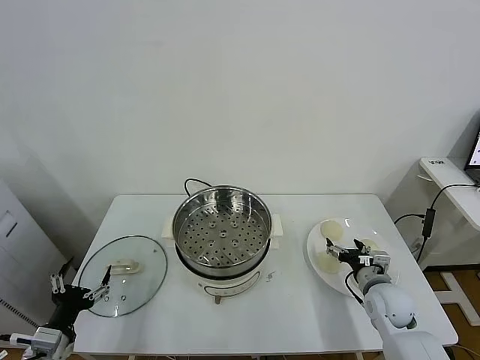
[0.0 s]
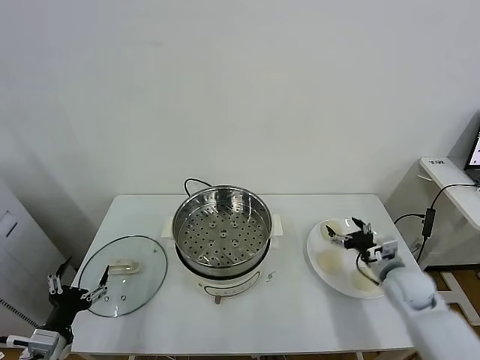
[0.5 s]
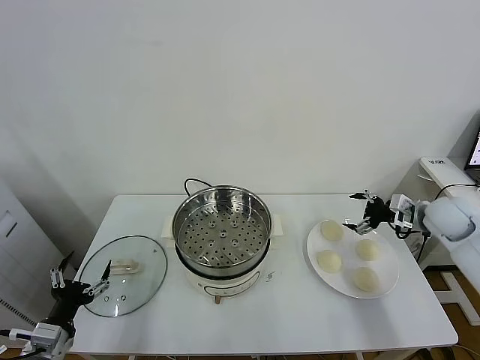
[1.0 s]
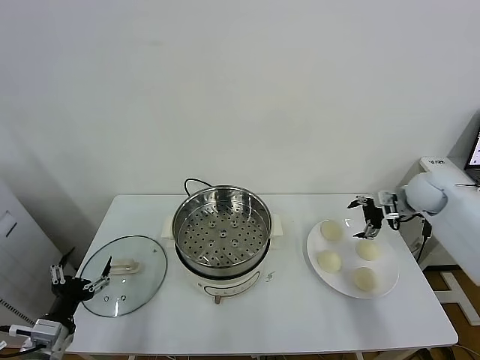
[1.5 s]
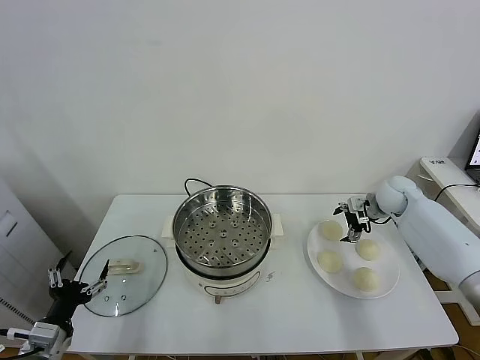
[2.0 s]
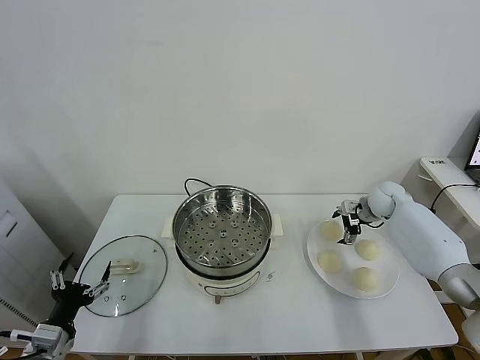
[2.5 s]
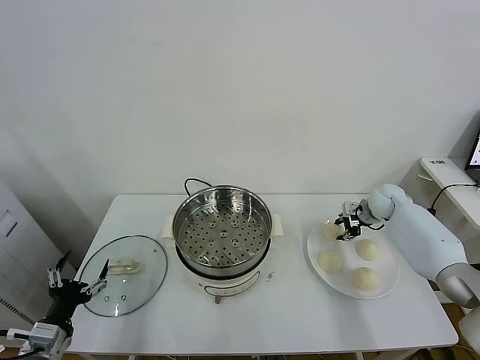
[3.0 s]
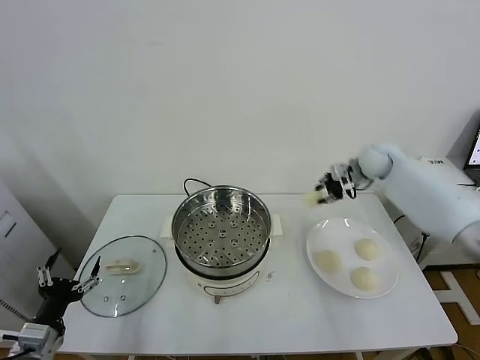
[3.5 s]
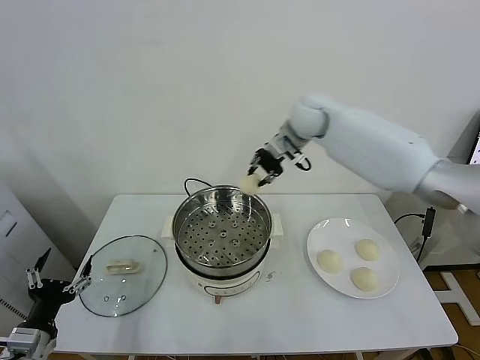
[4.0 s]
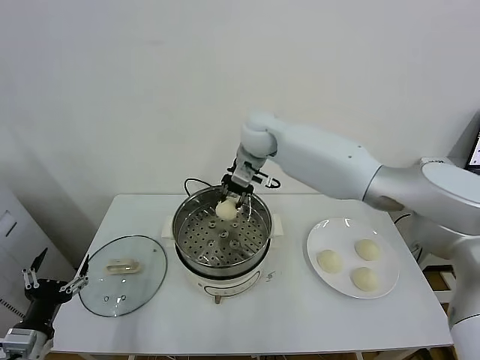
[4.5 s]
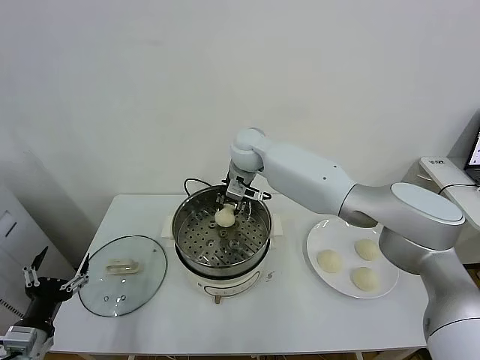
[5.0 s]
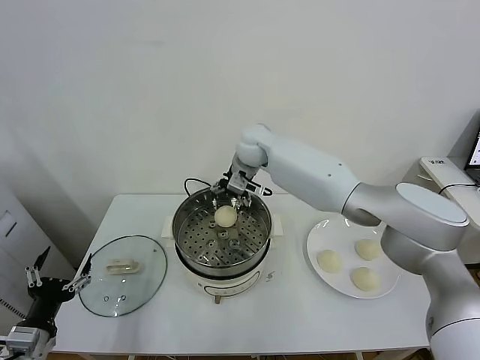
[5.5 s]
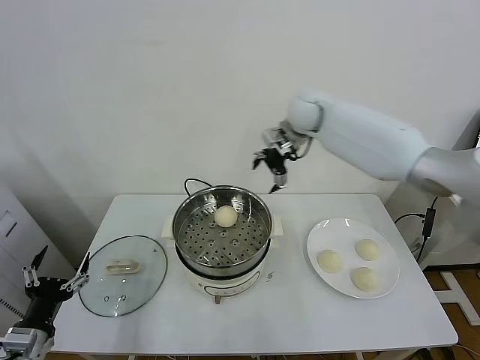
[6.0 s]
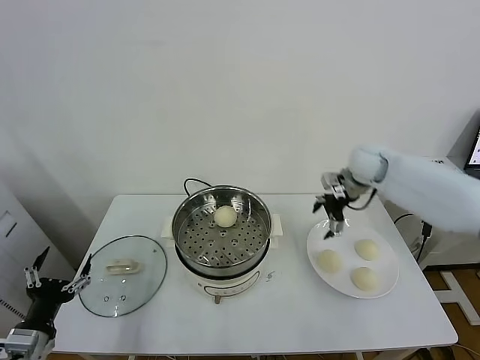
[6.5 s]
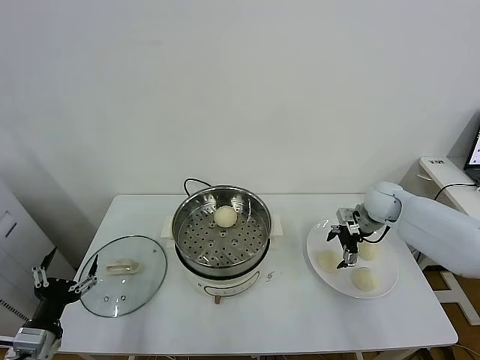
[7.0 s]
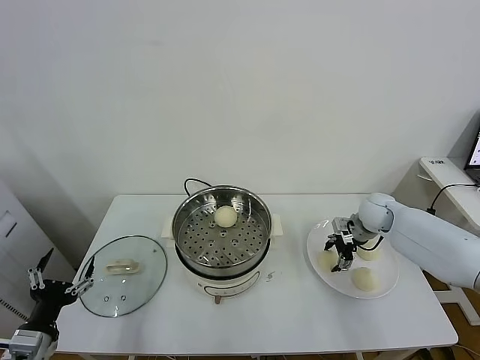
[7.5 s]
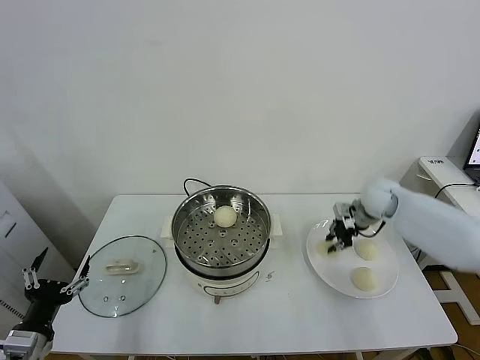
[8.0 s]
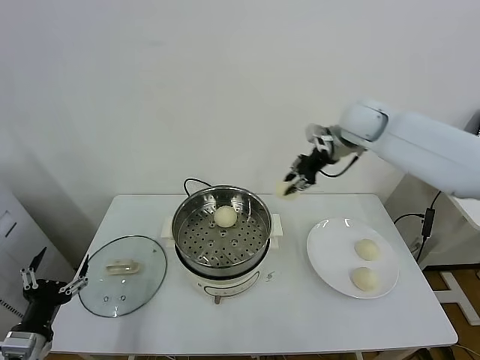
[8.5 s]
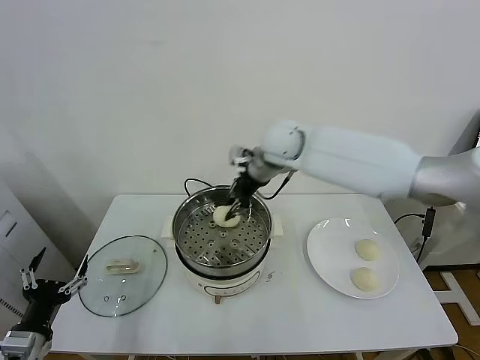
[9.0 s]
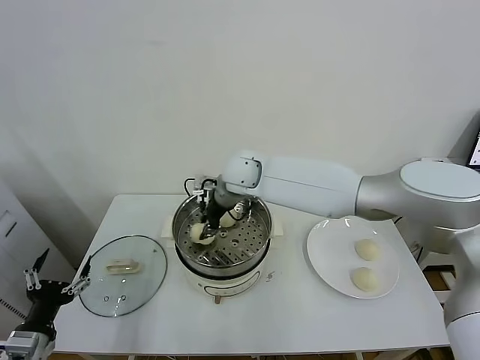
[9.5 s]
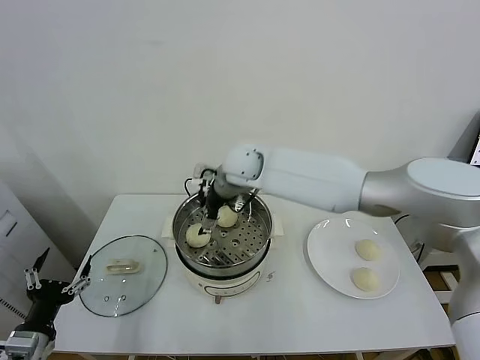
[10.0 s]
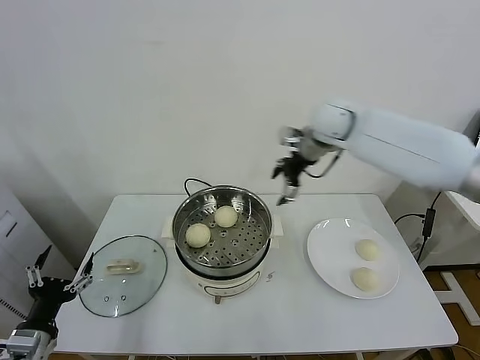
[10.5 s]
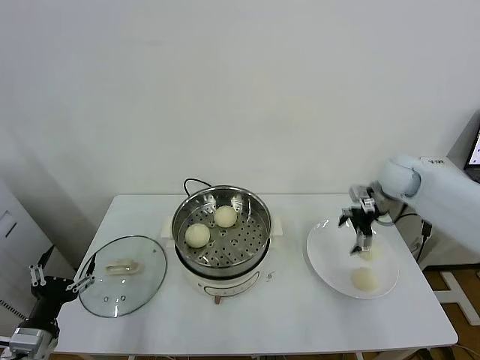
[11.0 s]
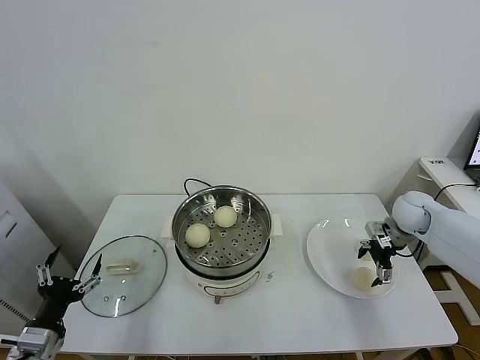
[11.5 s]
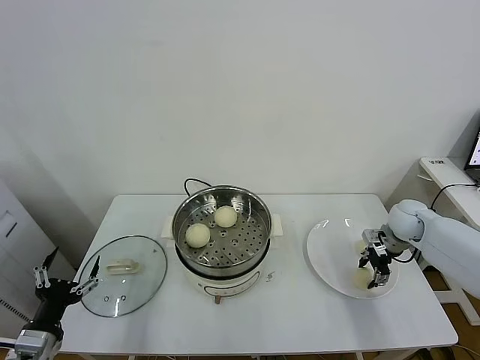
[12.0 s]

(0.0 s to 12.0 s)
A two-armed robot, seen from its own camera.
Task of the whole recording: take steamed baozi put them in steamer.
Step, 0.0 s - 2.5 s: Grasp the baozi in the plate with right gripper.
Step, 3.0 s - 5.0 s: Place the baozi on the steamer with right gripper.
Step, 5.5 s - 7.5 s: Grasp the baozi in the plate with right gripper.
Step, 8.0 s - 9.5 s: Place the baozi on the steamer with right gripper.
Step, 10.0 s - 12.0 s: Grasp the baozi in the plate with right gripper.
2.0 s - 4.0 s: The right gripper goes roughly 35 cm to the left and upward, and closes up.
4.0 s - 6.0 s: The right gripper heads to the right, covering roughly 5 cm, and opens.
6.0 s - 8.0 s: The right gripper travels downward, to the right and backward by approximately 25 cm, and closes its fingers.
8.0 s - 10.0 s: The right gripper travels to the left by approximately 35 cm, and opens.
10.0 s - 12.0 s: The right gripper shifts some 40 cm to the right and downward, and closes up.

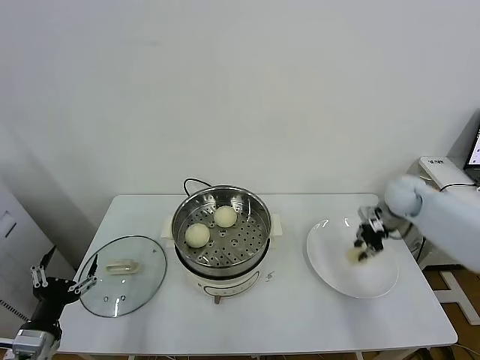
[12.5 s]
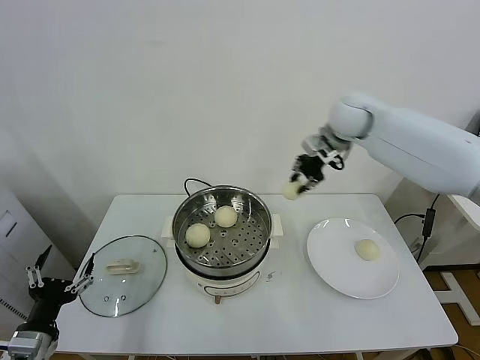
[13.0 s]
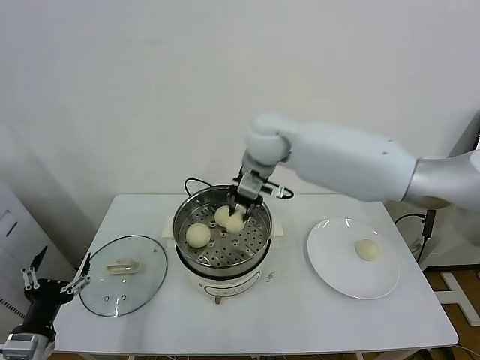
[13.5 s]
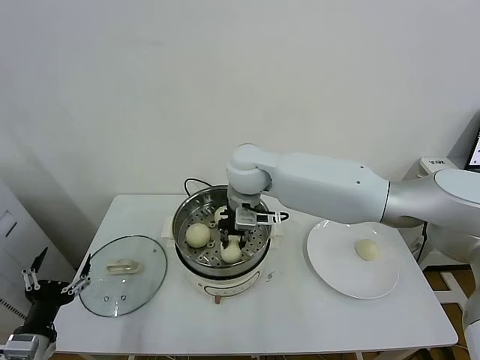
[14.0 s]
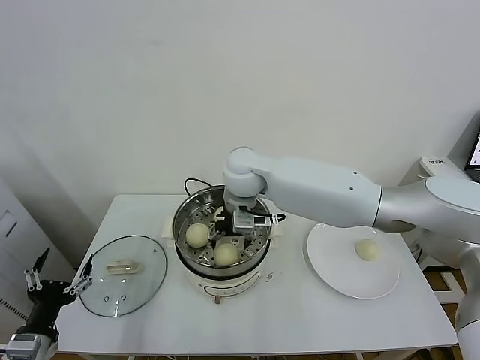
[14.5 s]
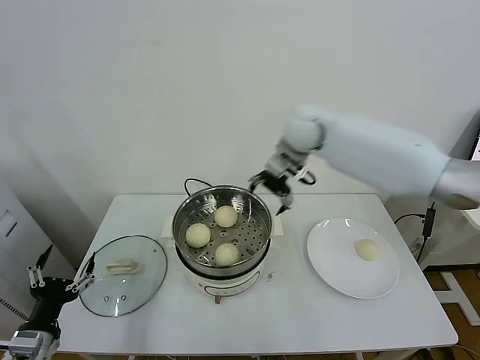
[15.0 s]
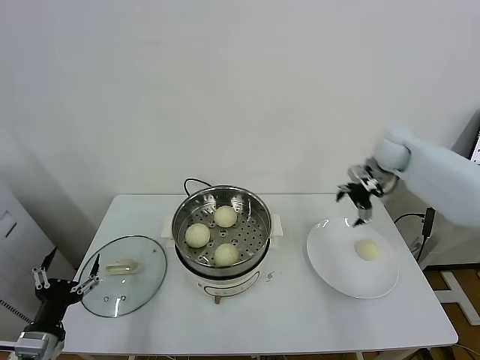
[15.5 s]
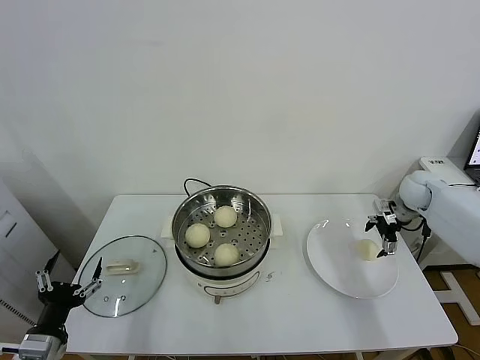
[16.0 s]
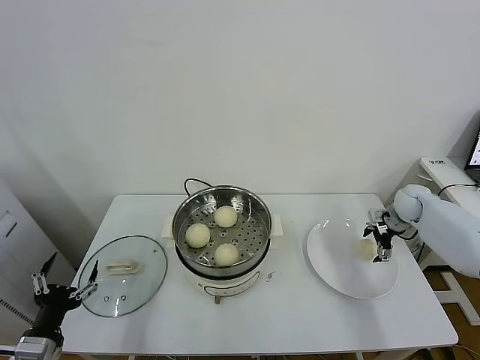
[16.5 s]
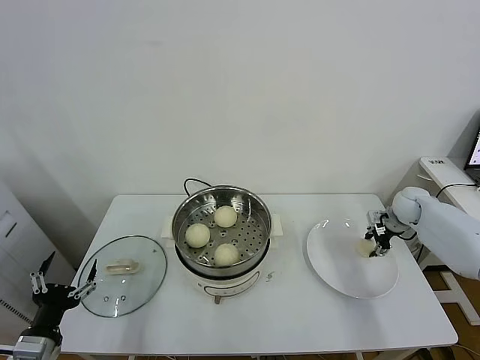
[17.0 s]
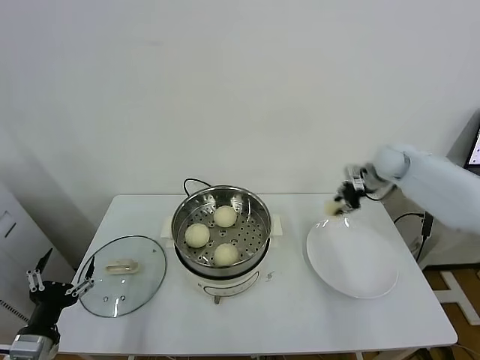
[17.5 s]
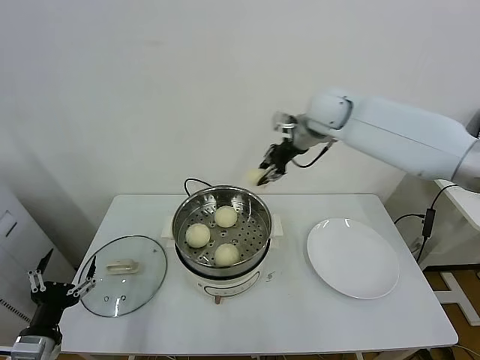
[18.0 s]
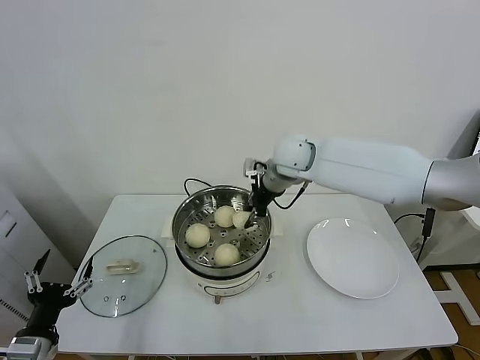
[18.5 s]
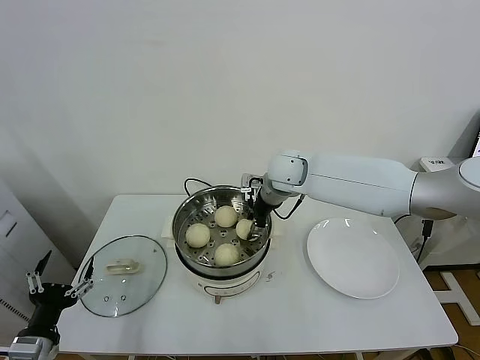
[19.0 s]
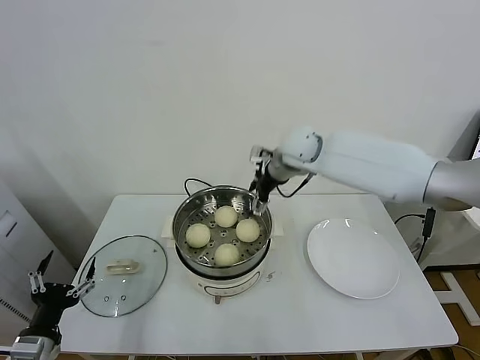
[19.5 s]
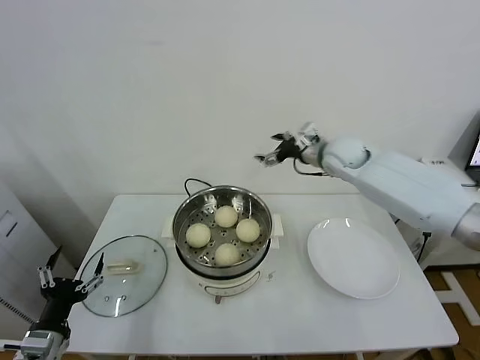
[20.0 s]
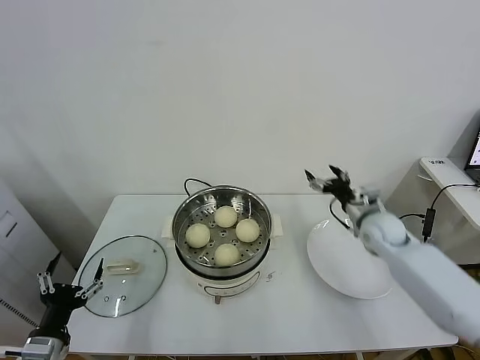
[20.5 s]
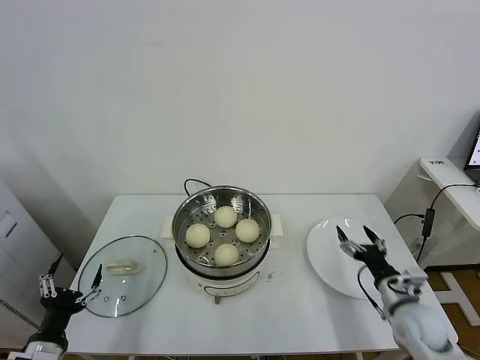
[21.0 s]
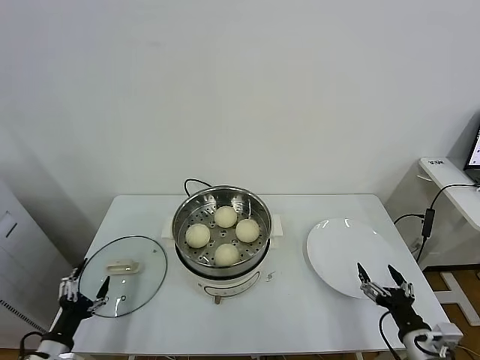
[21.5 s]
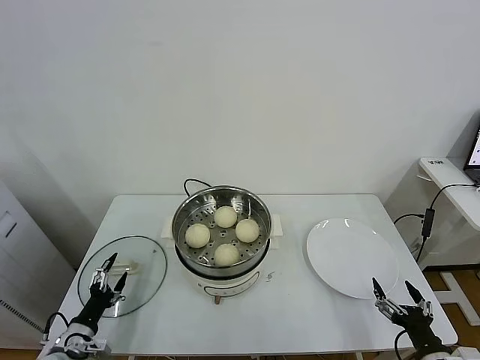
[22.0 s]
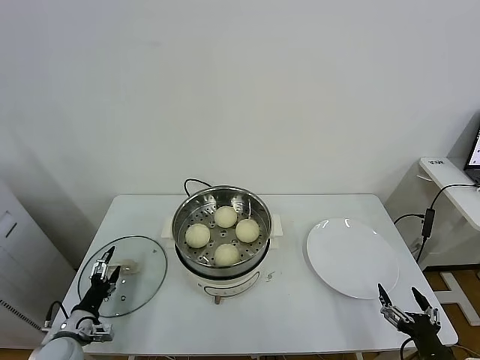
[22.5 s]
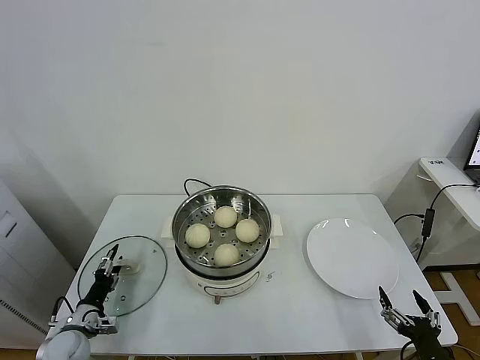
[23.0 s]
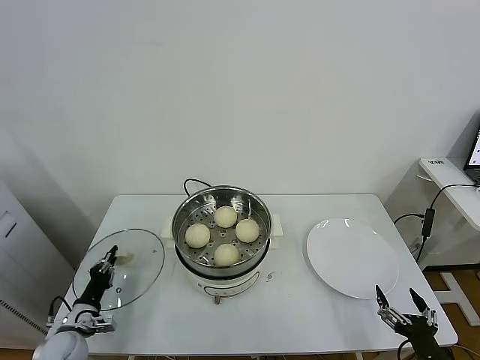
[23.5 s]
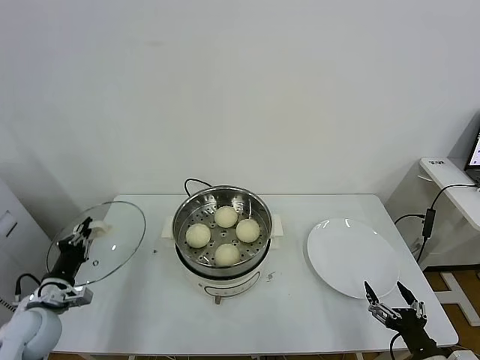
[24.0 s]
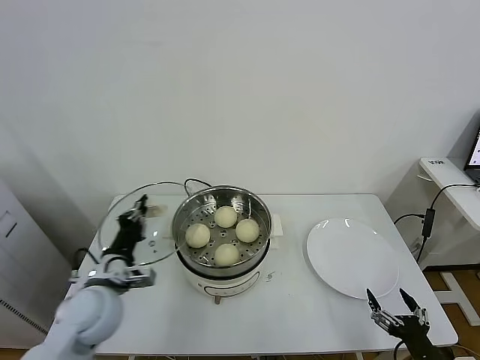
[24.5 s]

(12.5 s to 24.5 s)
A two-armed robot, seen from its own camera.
Task of the whole recording: take steamed baozi put them in steamer.
Step, 12.5 s - 14.5 s: Place the baozi on the steamer with right gripper.
Step, 15.0 s - 16.5 s: Grasp the baozi in the plate with right gripper.
Step, 17.0 s - 19.0 s: Place the baozi on the steamer with right gripper.
Step, 19.5 s - 23.5 s: Grasp the pot lid with left gripper.
12.5 s - 14.5 s: The right gripper shifts roughly 40 cm to the left, and opens its fingers.
14.5 s - 16.5 s: The right gripper shifts approximately 50 cm to the right.
16.5 s - 18.5 s: The right gripper goes roughly 40 cm to the left and upward, and closes up.
18.5 s - 20.5 s: The right gripper is displaced to the right and downward by roughly 30 cm, and opens its fingers.
20.5 s - 22.5 s: The left gripper travels downward and forward by some 15 cm; the right gripper heads backward, covering roughly 35 cm.
22.5 s - 24.5 s: The left gripper is displaced upward and to the right by roughly 20 cm, and closes.

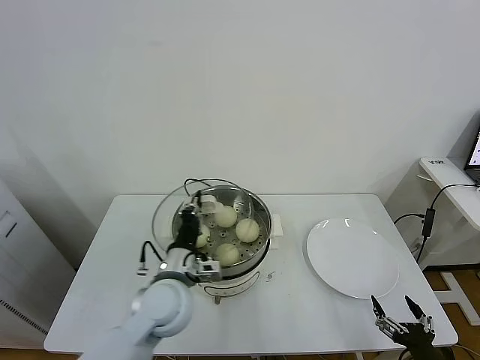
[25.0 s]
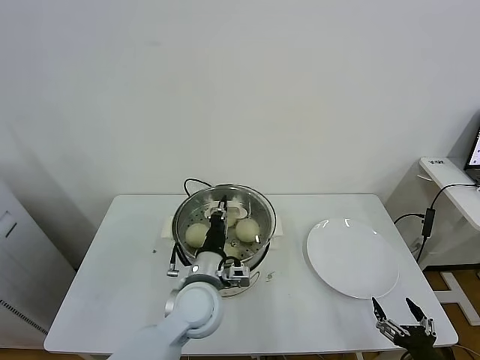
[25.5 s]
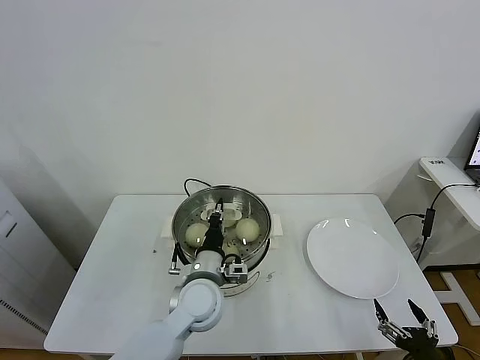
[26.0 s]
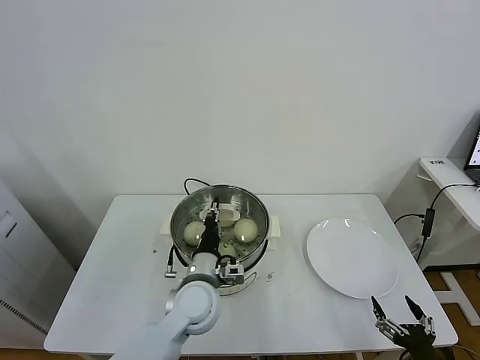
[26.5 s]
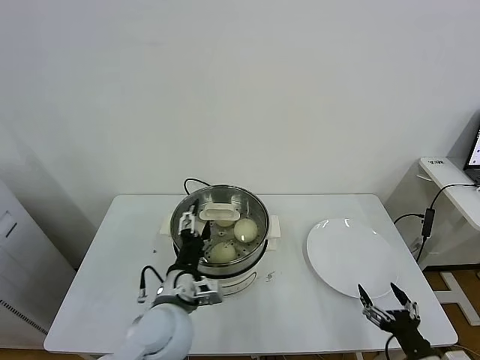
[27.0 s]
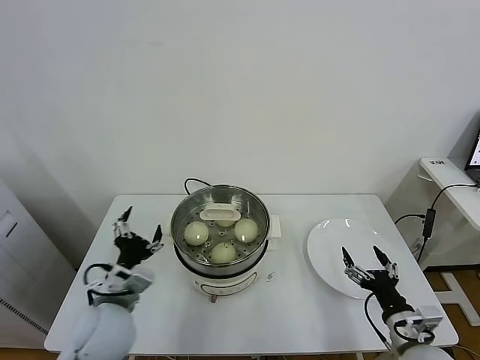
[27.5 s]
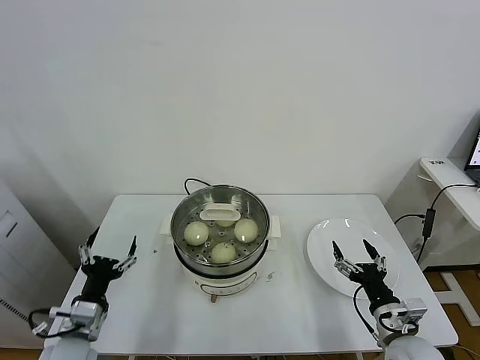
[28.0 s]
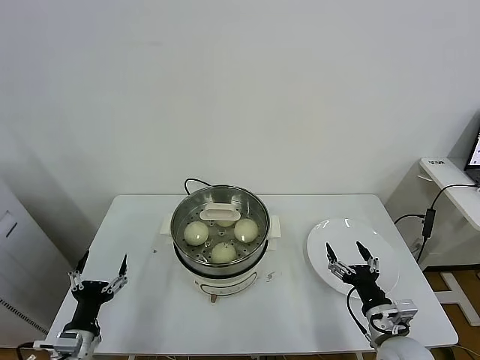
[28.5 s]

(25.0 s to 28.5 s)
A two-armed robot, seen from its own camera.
Task of the whole recording: take steamed baozi put them in steamer.
Step, 25.0 s - 27.0 s: Place the pot lid on the steamer with left gripper.
25.0 s - 27.0 s: The left gripper opens.
27.0 s - 28.5 s: The left gripper goes some 25 cm to the left and downward, while the right gripper travels forward and to the left by some 10 cm.
